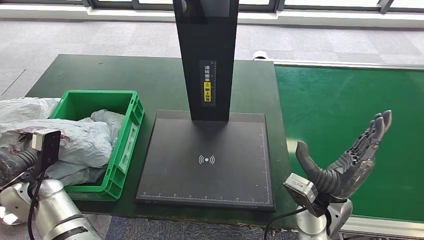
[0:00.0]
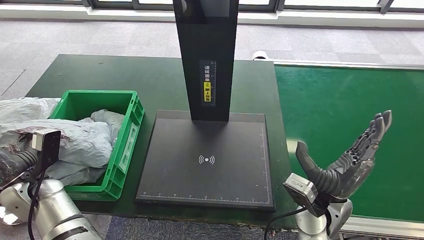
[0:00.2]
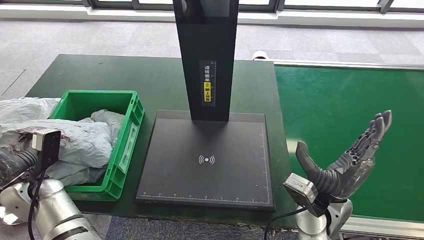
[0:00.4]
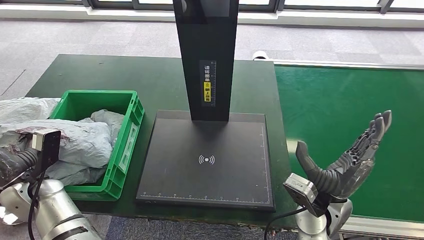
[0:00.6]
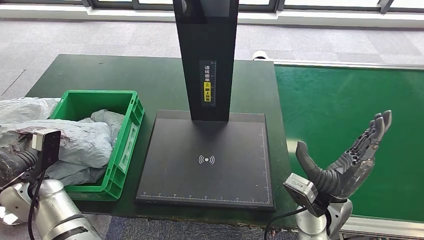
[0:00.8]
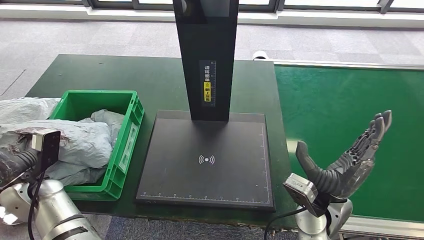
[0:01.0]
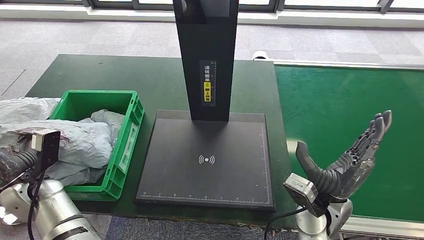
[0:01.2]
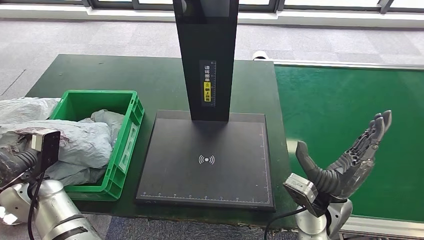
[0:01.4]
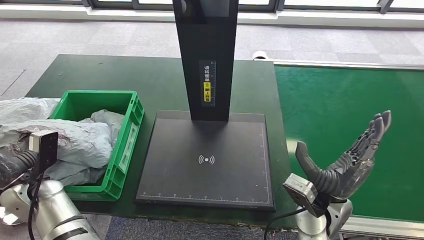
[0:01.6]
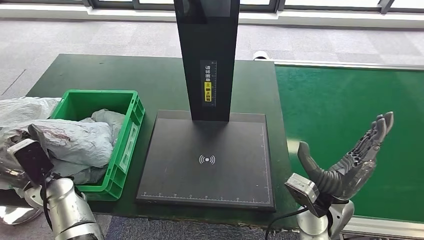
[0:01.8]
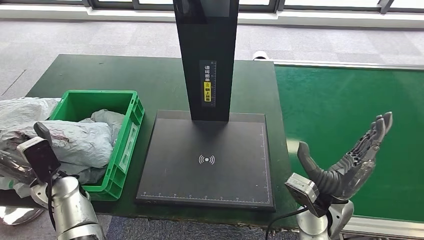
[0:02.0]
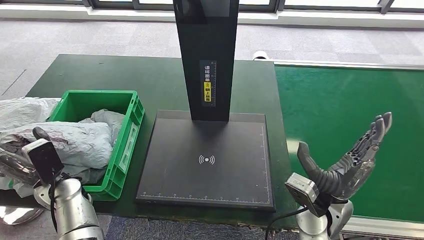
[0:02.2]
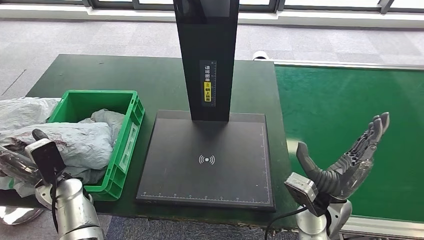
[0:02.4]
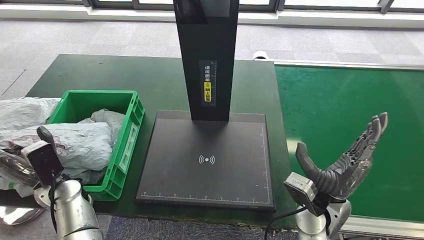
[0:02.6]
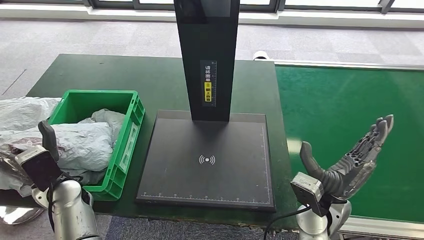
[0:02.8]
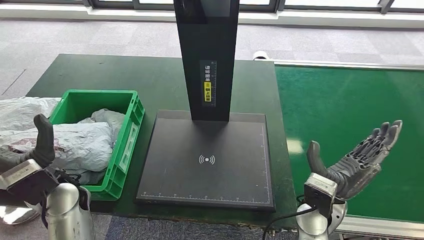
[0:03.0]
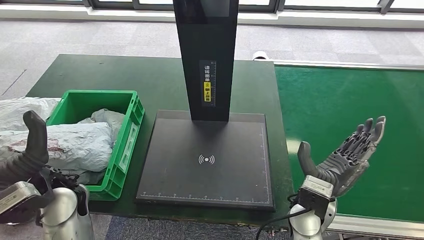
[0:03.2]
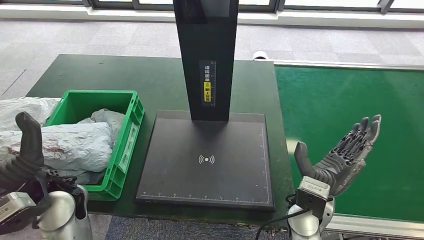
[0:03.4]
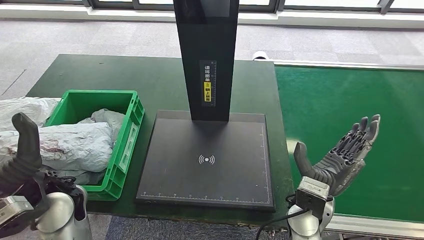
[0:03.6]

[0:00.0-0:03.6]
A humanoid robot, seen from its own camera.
Step, 0:00.0 to 0:03.6: Place the parcel into the delivery box.
0:01.8 to 0:03.6: The left hand goes roughly 15 cm upward and to the right.
